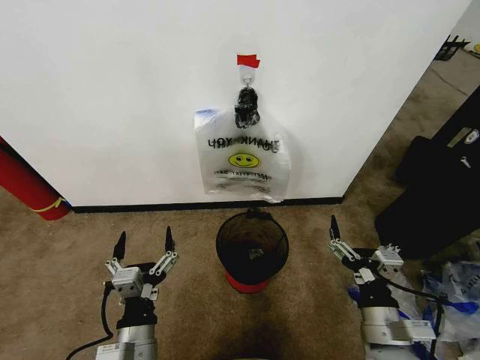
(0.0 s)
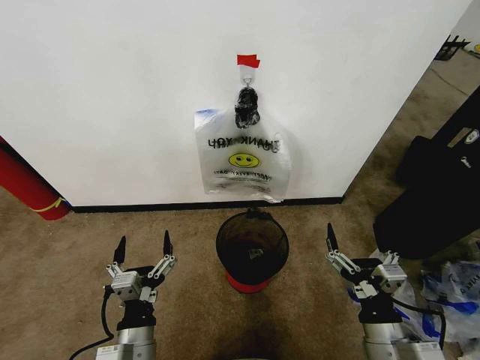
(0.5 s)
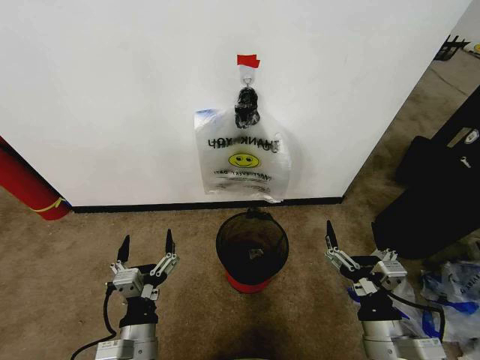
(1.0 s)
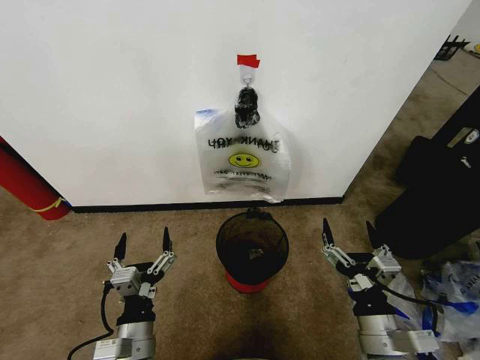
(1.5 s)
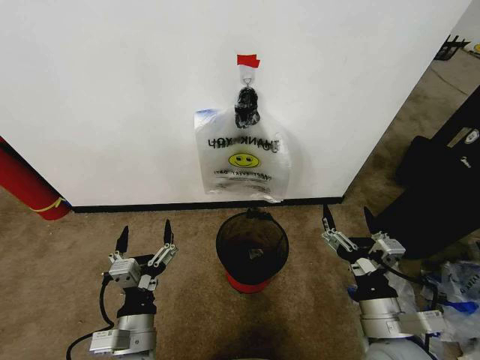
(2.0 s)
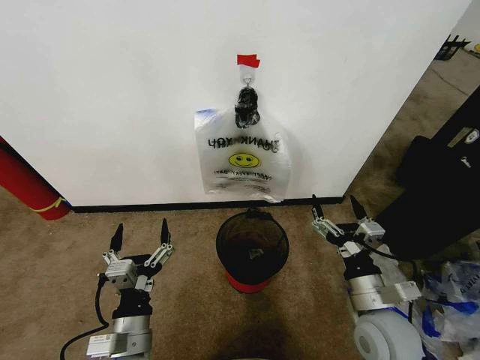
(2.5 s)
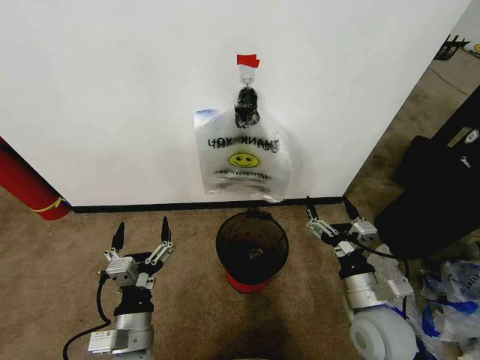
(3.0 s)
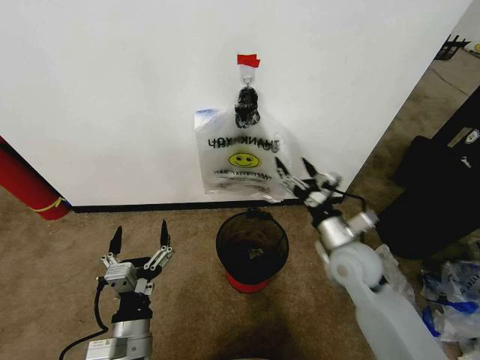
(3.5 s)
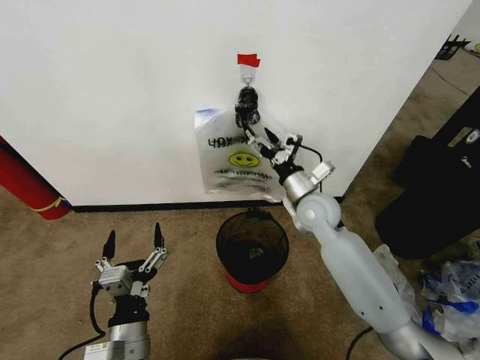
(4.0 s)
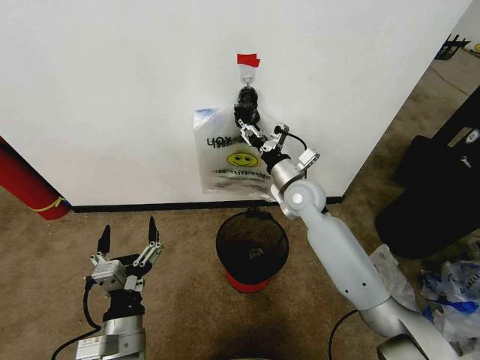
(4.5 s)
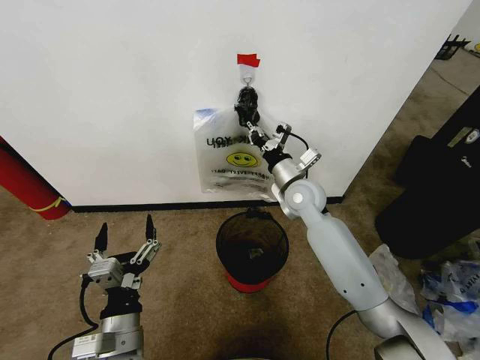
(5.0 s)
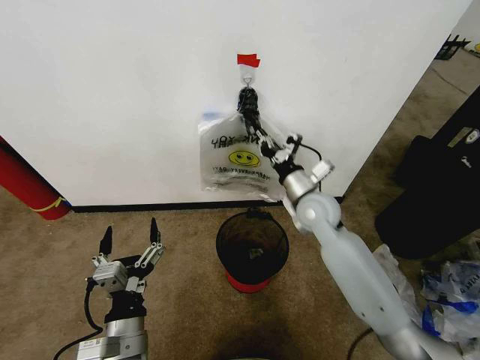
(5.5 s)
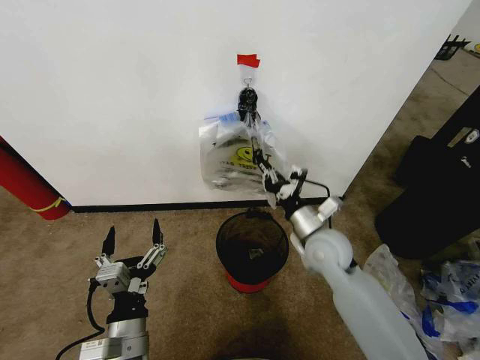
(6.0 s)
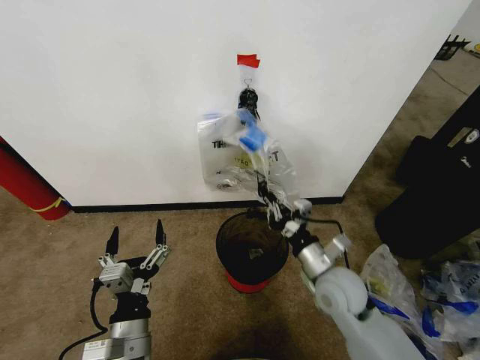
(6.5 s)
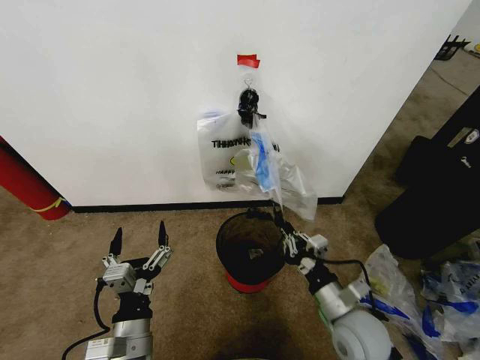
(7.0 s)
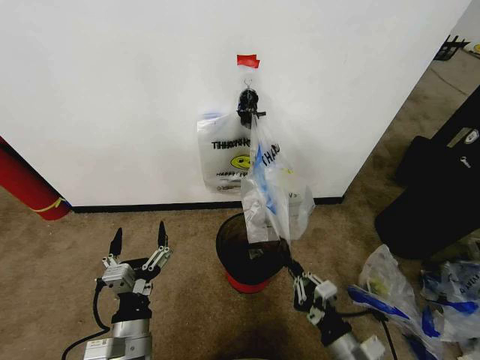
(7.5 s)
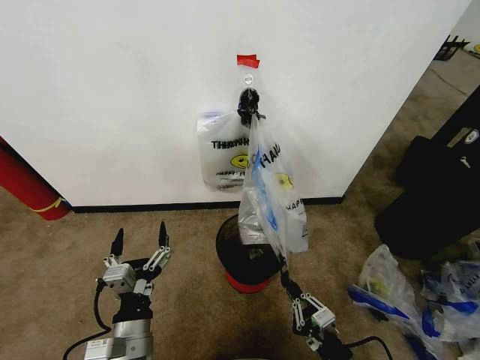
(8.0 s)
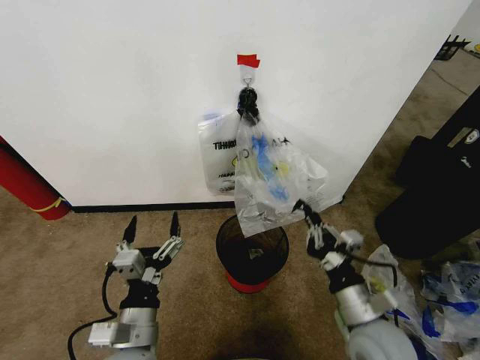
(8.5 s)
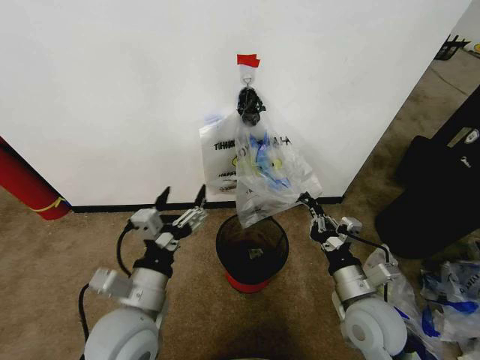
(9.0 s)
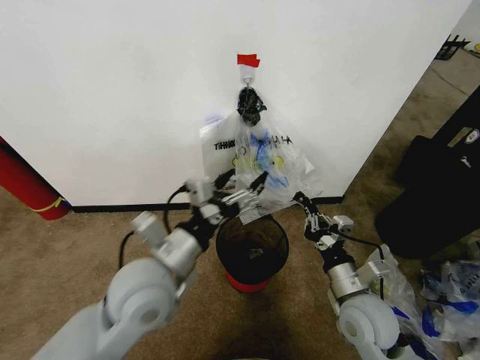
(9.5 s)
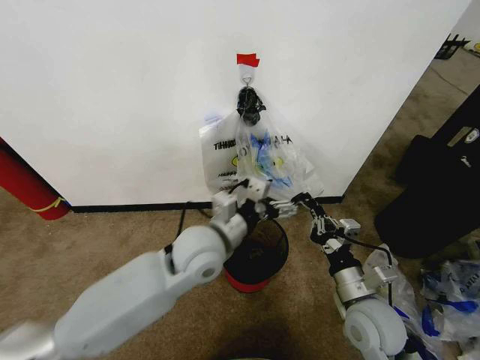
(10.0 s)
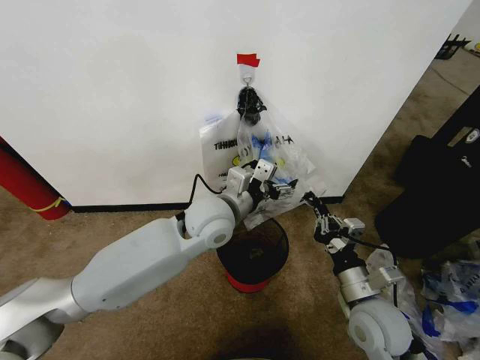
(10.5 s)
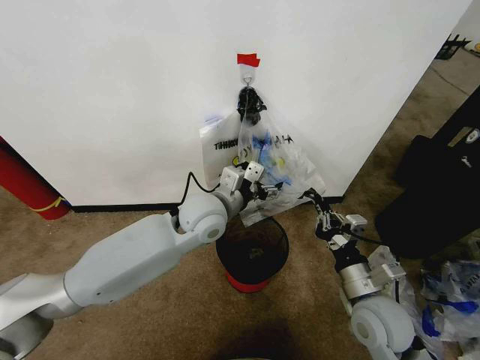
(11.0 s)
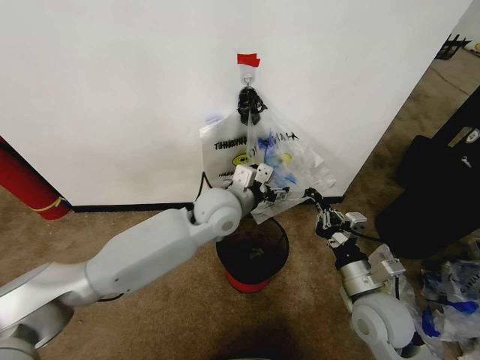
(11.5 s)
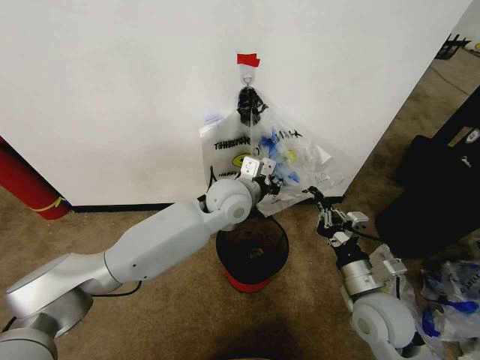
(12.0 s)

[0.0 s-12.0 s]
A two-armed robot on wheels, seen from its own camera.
Task of the whole recording: Pick up the garbage bag from the wall and place it over the trash bin.
2.0 to 4.0 s: The right gripper travels forward by roughly 30 cm.
4.0 to 6.0 s: The right gripper travels backward by approximately 10 cm, and closes its fingers.
6.0 to 8.0 s: The right gripper moves backward and downward, about 30 cm.
8.0 to 10.0 s: The left gripper moves forward, upward and to the right, approximately 25 cm, while the right gripper moves forward and upward, about 15 cm.
10.0 to 12.0 s: The left gripper is displaced forward and to the right by about 10 cm, and closes.

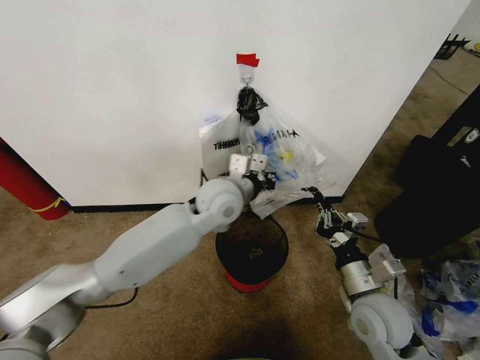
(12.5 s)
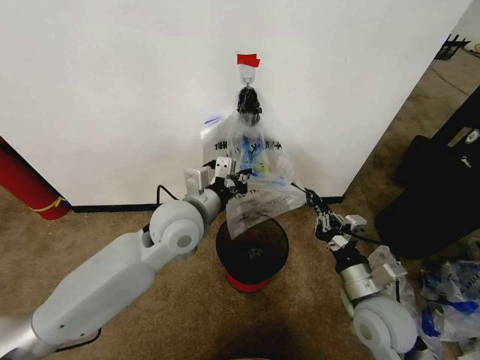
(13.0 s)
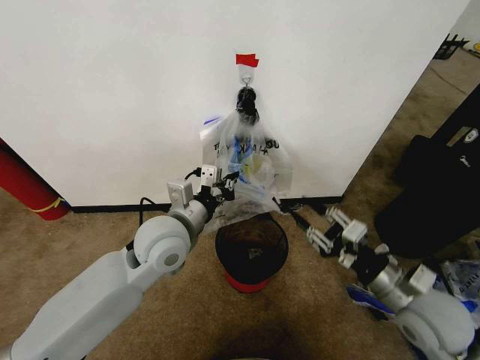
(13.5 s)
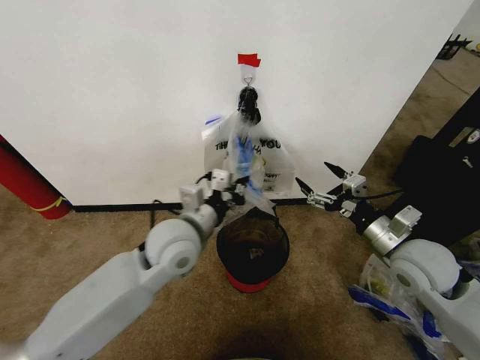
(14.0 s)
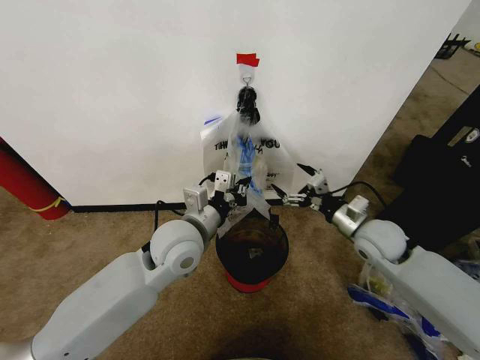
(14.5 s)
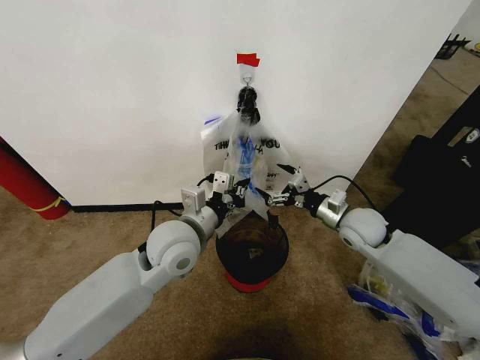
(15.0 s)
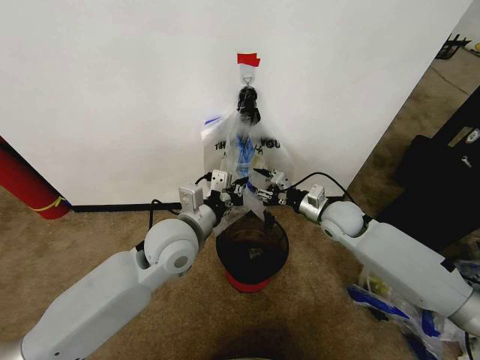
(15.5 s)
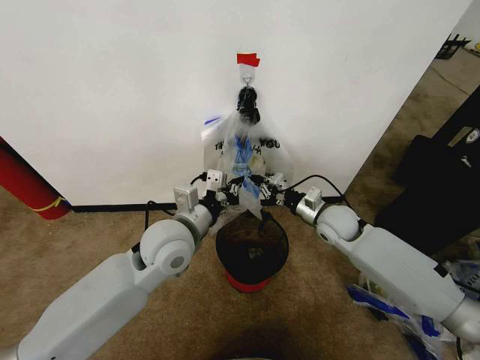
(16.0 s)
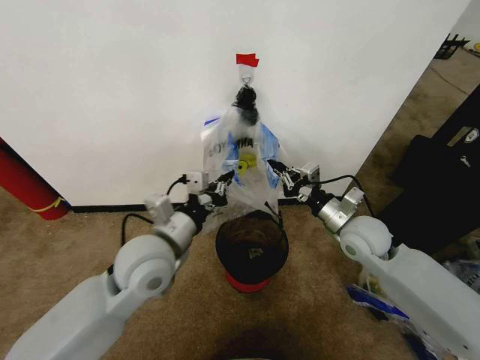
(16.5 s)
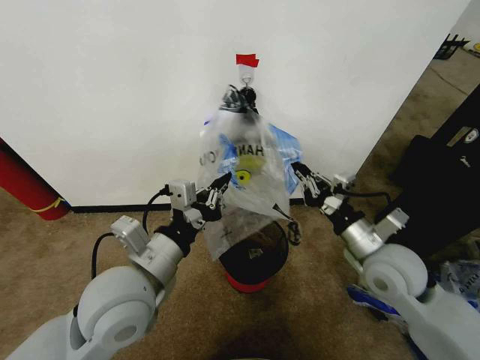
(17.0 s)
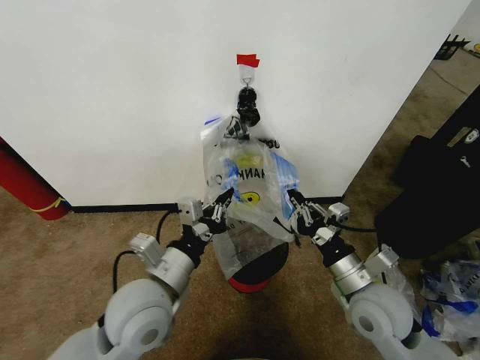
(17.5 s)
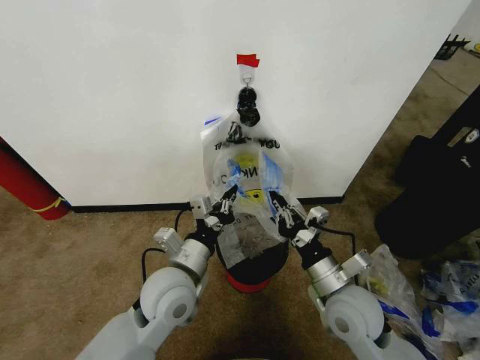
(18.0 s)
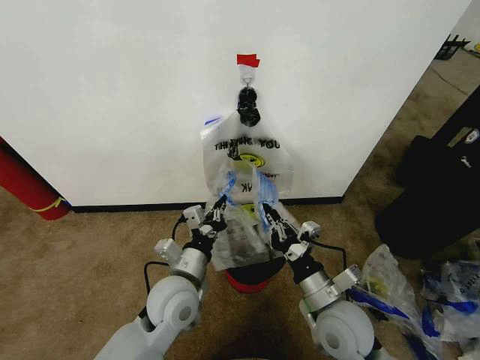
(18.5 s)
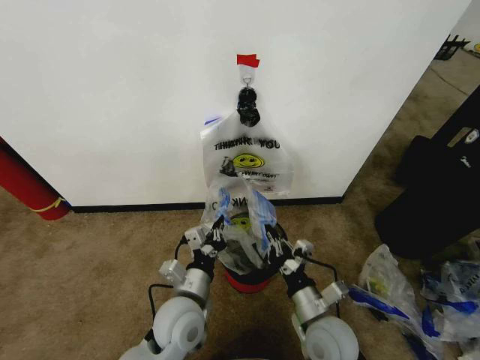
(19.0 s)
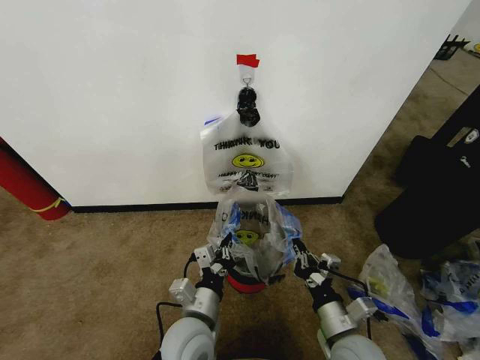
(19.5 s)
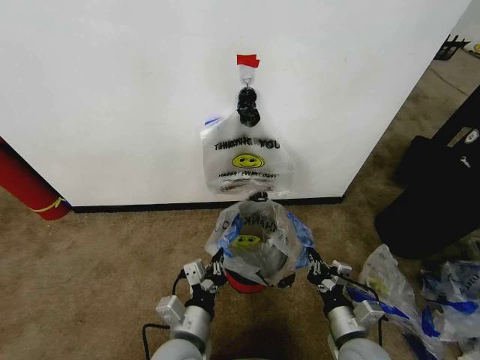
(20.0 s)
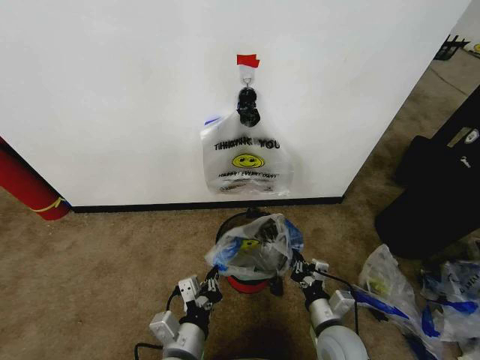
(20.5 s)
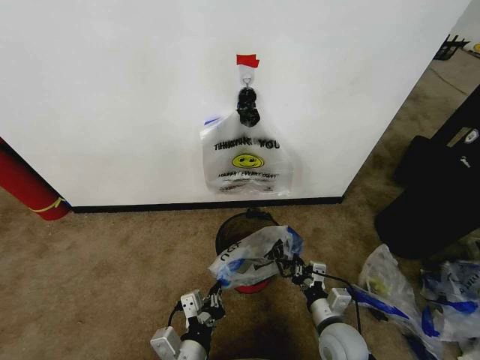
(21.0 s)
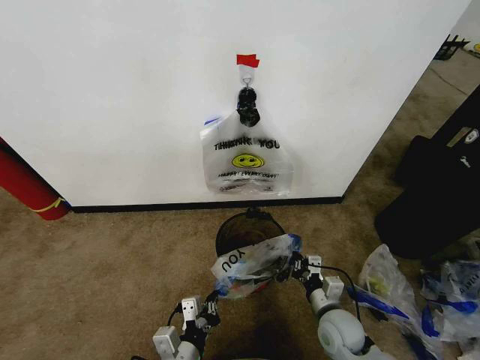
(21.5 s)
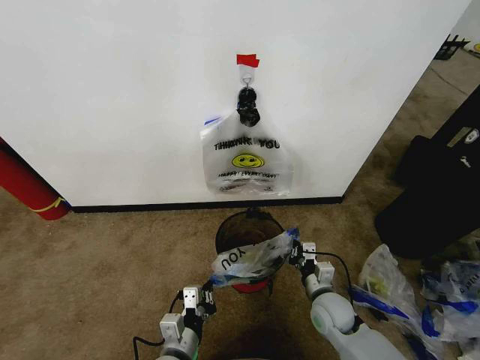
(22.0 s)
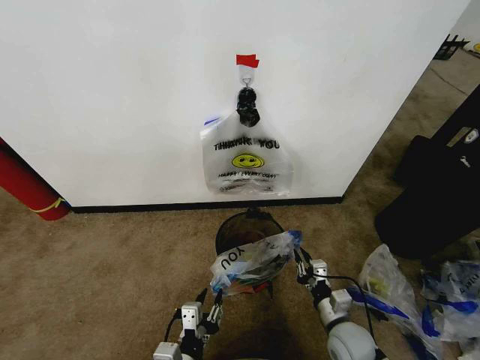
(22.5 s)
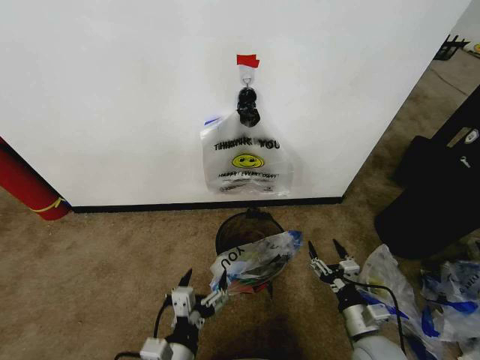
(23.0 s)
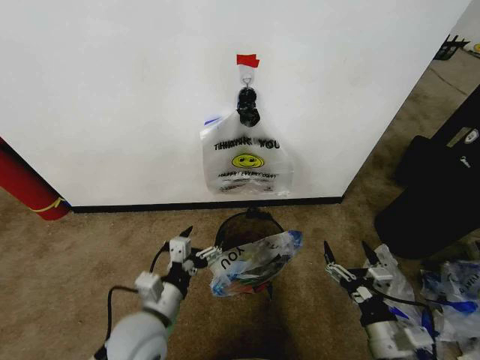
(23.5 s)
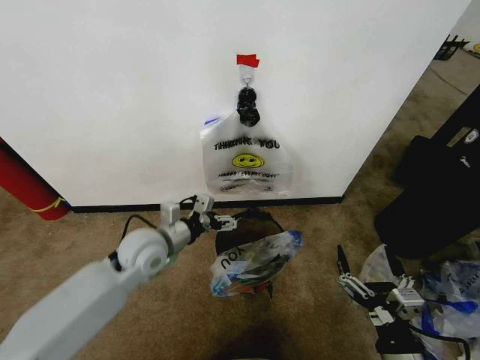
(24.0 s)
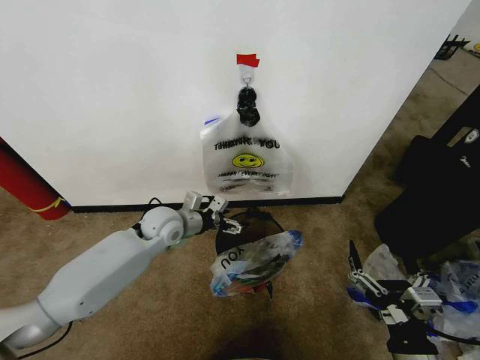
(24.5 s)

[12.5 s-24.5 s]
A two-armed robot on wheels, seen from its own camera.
Task of the whole recording: Pick up the garbage bag from the wall and place it over the trash bin.
12.5 to 14.5 s: The right gripper heads forward, covering about 15 cm, and opens. The left gripper travels backward and to the left by roughly 10 cm.
14.5 to 16.5 s: The left gripper changes place by roughly 5 cm. Meanwhile the right gripper moves approximately 10 cm forward and comes back, and closes its fingers.
16.5 to 18.5 s: The right gripper shifts some 20 cm backward and to the left. Meanwhile the left gripper heads downward, covering some 10 cm.
18.5 to 20.5 s: The right gripper heads downward, covering some 10 cm. The left gripper travels backward by approximately 10 cm.
20.5 to 22.5 s: The right gripper reaches approximately 10 cm forward, then returns. Meanwhile the left gripper shifts by about 5 cm, and opens.
22.5 to 24.5 s: The left gripper goes approximately 35 cm forward, and opens up; the right gripper heads upward and backward, covering some 20 cm, and opens up.

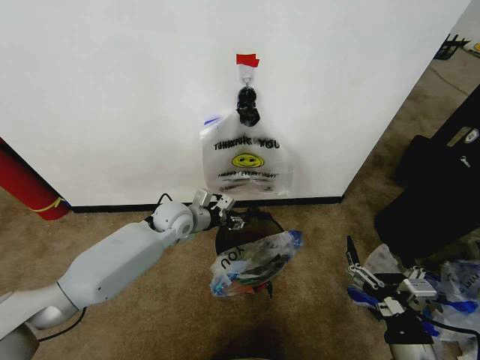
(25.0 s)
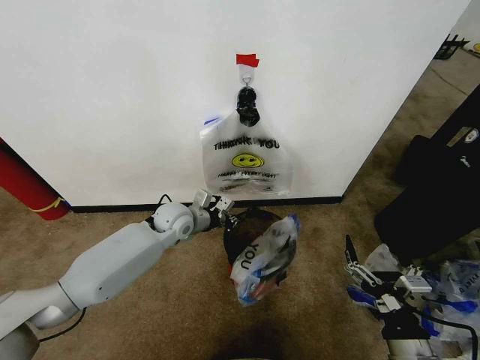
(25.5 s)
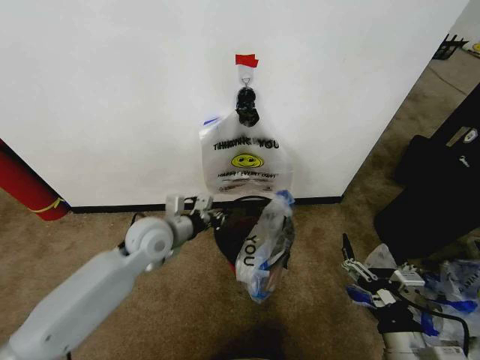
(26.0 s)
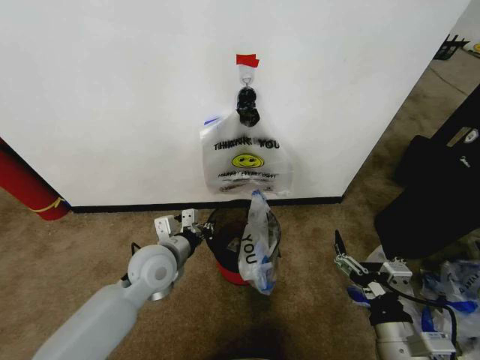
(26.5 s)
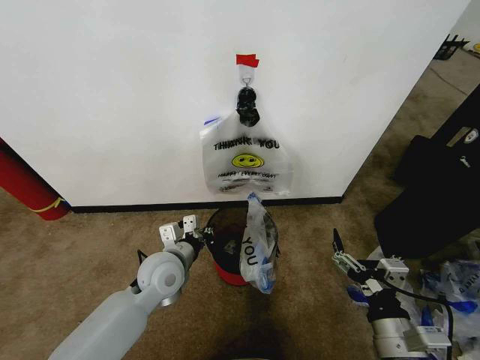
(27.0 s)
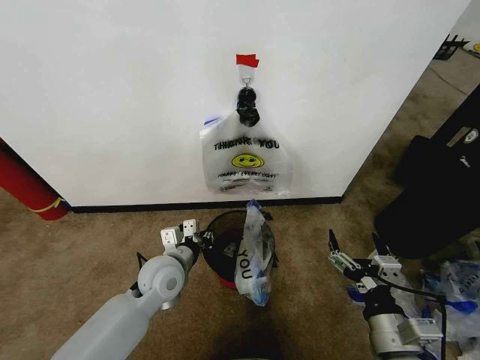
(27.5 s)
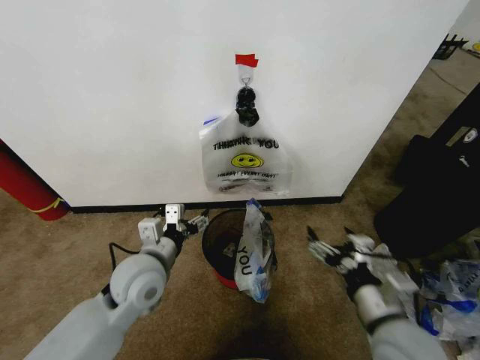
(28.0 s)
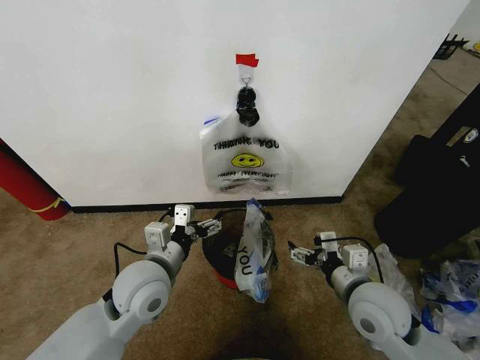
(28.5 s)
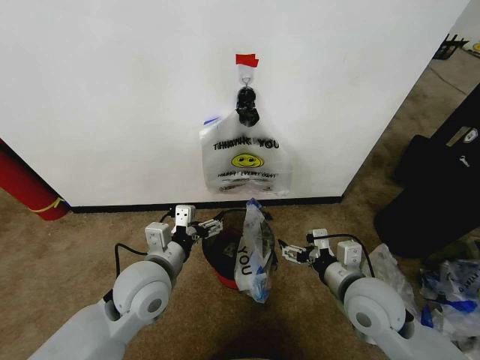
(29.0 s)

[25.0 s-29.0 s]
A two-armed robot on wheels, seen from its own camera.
Task of the whole recording: Pick up the garbage bag from the wall and place it over the trash bin.
25.0 to 27.0 s: The left gripper shifts some 15 cm backward, and closes up.
27.0 to 29.0 s: The left gripper heads upward and backward, covering about 10 cm, and opens up. Meanwhile the right gripper is displaced forward by some 10 cm.
